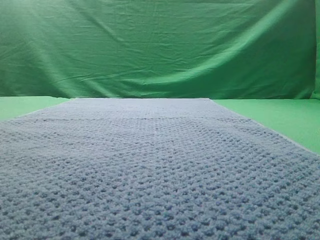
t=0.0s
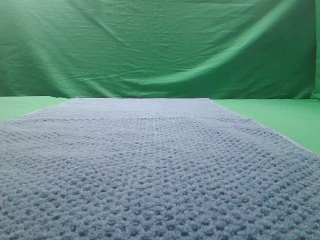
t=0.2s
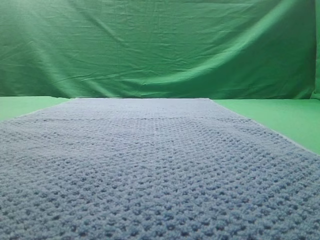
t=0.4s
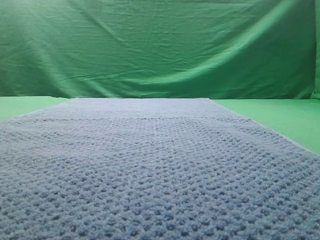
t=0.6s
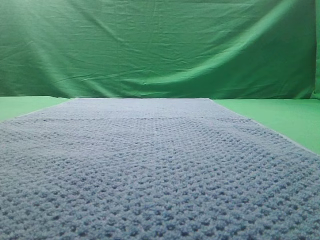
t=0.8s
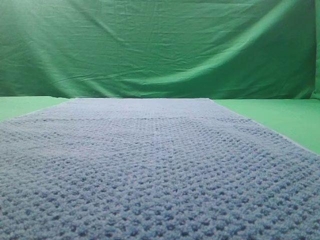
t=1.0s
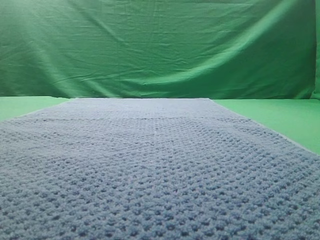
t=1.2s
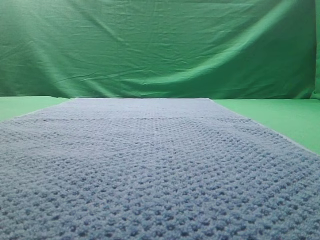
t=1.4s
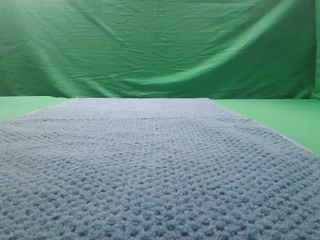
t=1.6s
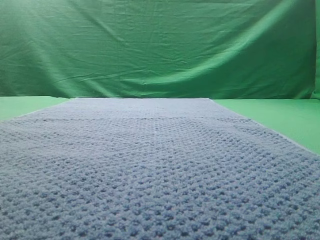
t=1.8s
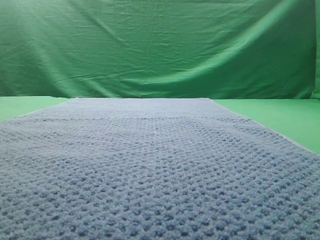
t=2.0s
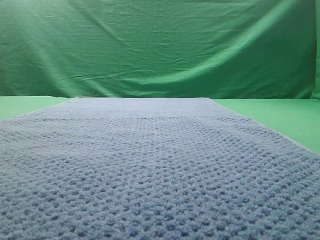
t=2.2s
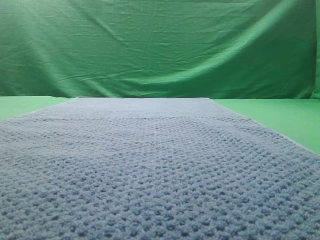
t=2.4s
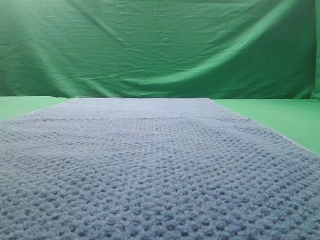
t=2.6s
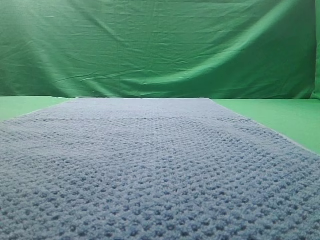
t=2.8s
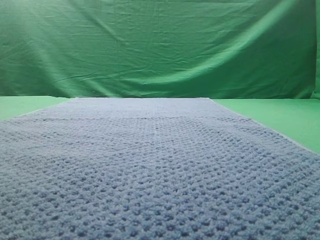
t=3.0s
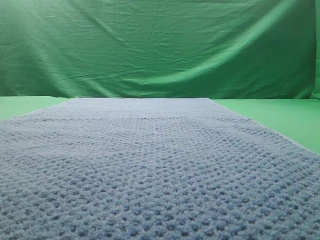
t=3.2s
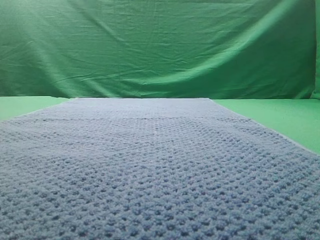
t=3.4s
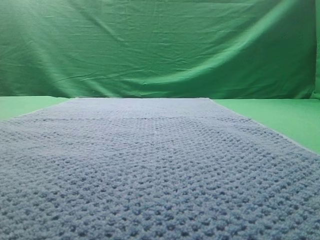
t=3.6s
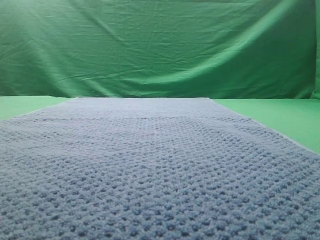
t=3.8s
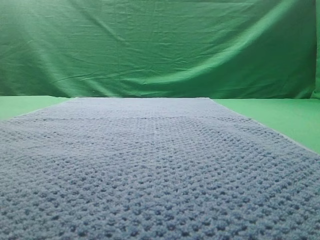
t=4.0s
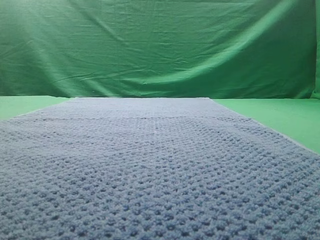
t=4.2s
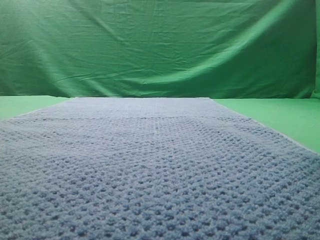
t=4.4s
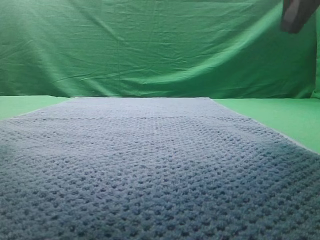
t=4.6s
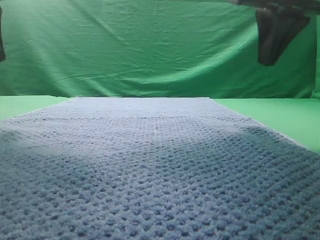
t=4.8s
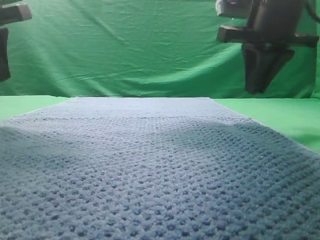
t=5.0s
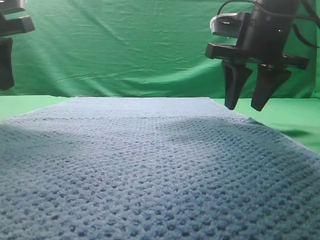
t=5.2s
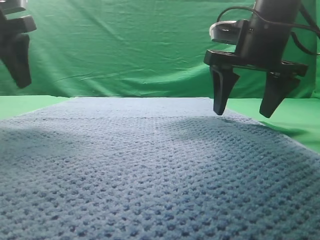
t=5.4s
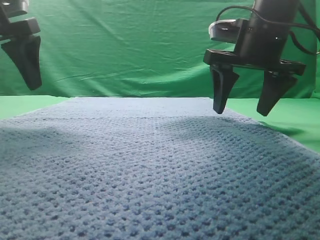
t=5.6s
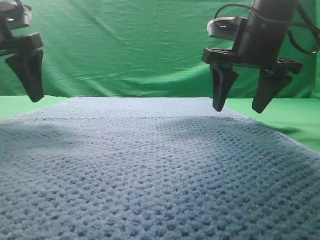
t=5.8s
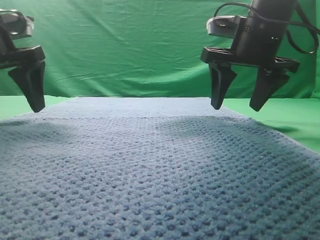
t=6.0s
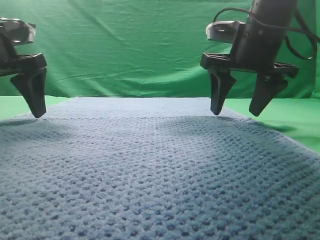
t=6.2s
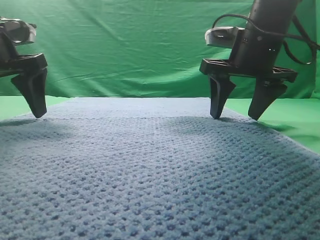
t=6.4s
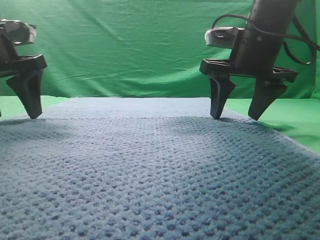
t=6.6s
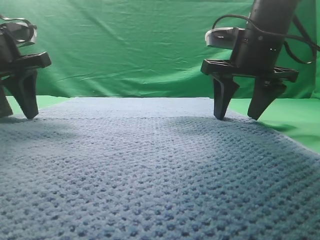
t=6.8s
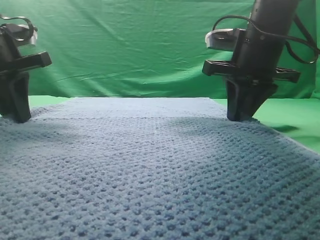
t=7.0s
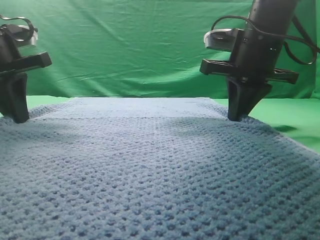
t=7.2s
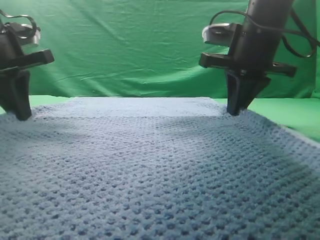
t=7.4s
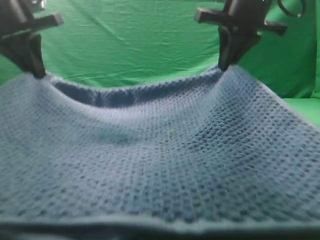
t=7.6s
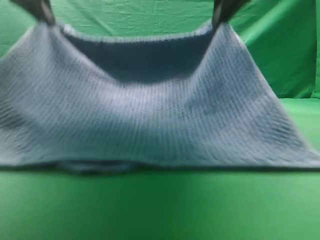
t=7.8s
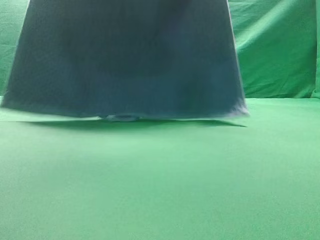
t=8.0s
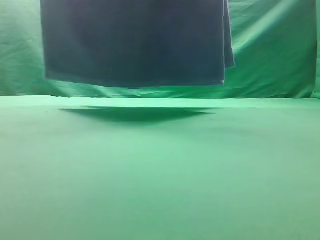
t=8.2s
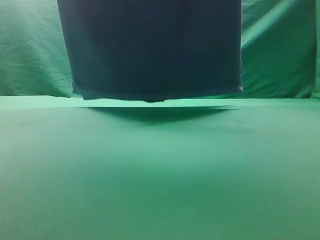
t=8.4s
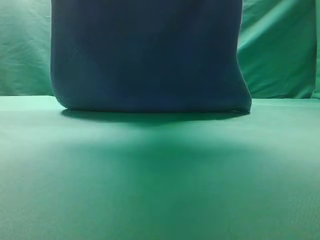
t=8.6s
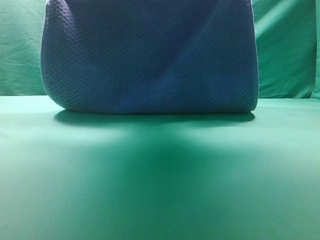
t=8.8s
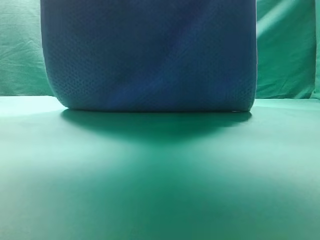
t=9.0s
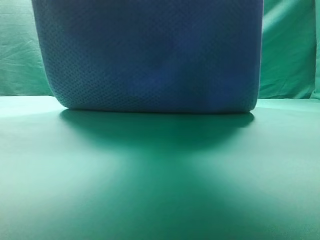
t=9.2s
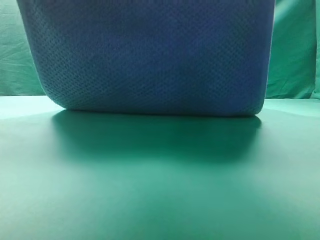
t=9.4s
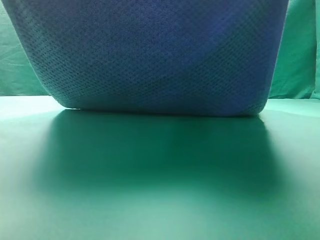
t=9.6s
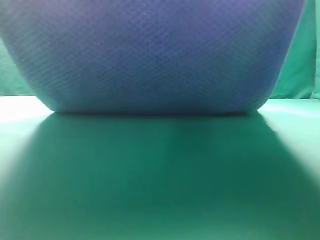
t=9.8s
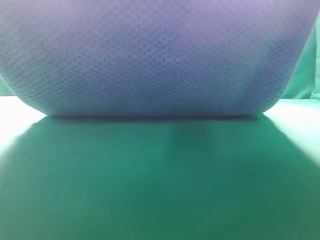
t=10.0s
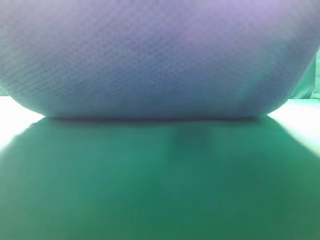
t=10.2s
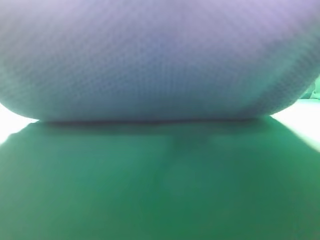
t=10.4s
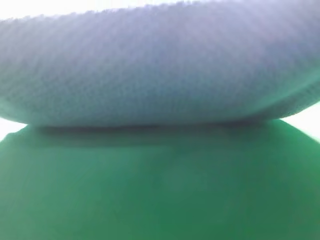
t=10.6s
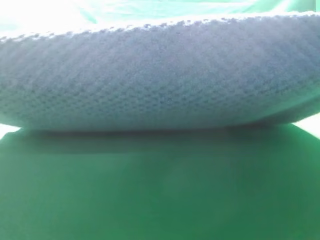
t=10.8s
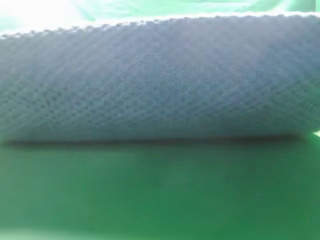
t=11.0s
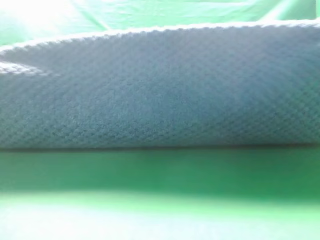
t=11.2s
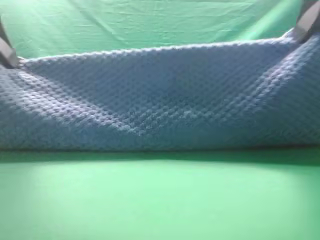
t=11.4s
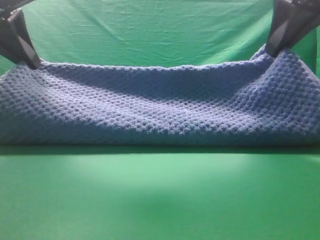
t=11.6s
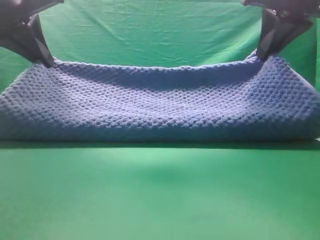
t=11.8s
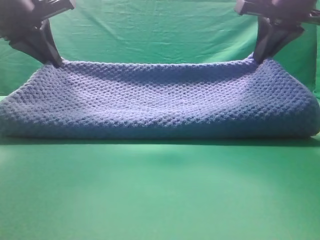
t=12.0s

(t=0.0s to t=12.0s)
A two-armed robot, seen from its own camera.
Task of the whole recording: fold the towel on the table twice.
Step, t=0.0s - t=8.0s: pick up the towel with two arm.
